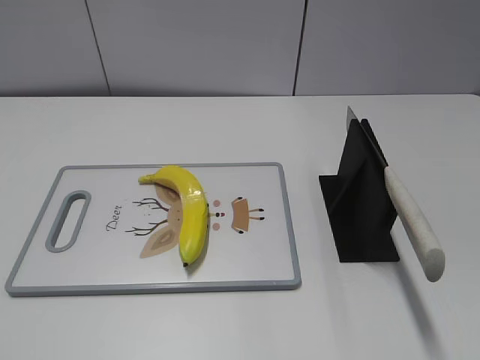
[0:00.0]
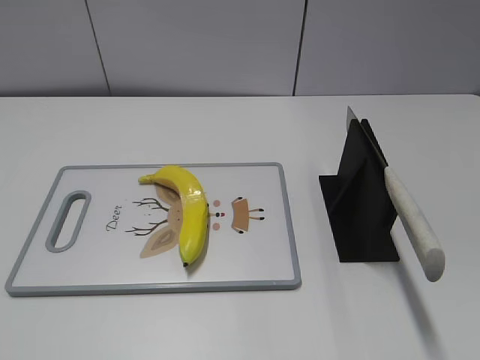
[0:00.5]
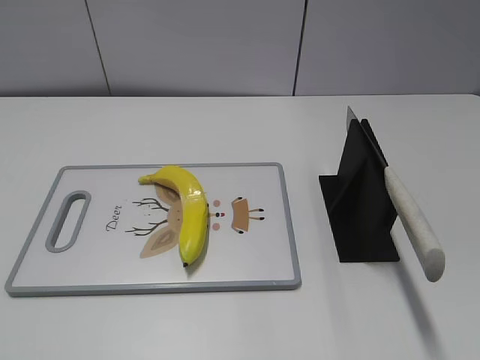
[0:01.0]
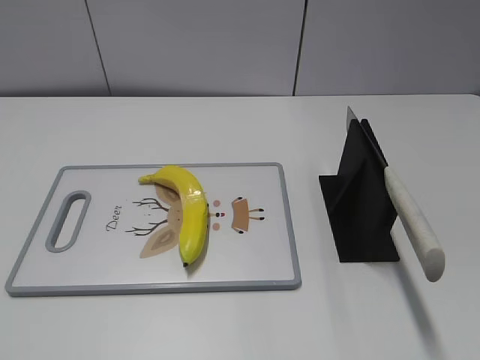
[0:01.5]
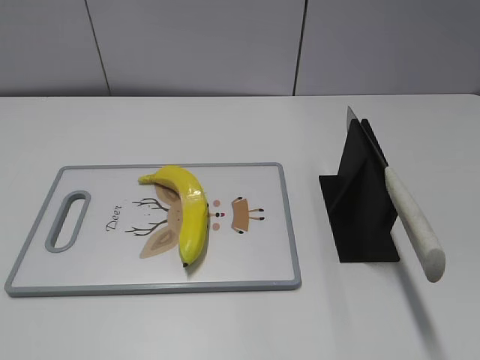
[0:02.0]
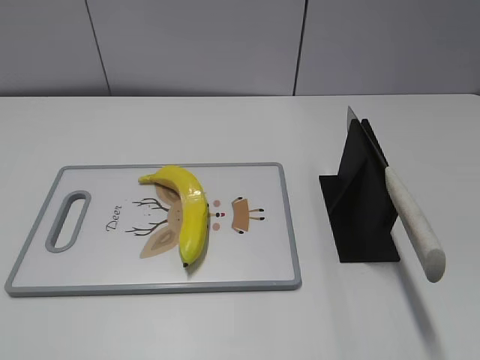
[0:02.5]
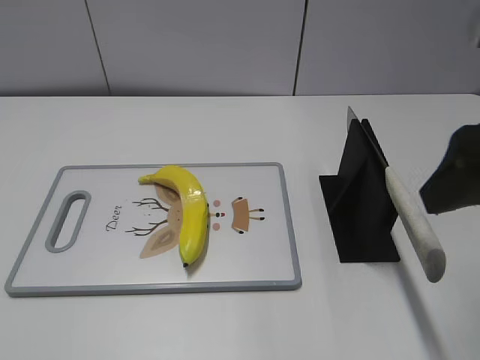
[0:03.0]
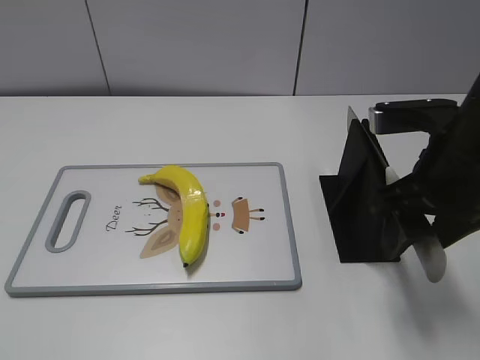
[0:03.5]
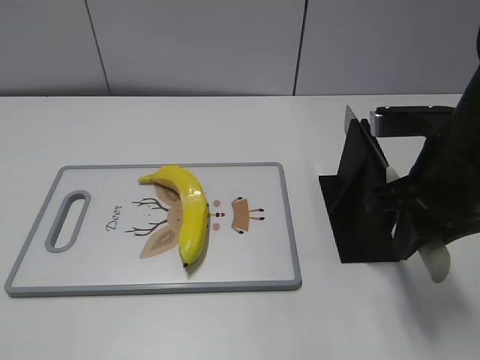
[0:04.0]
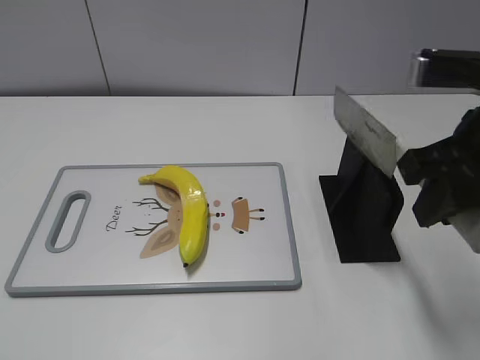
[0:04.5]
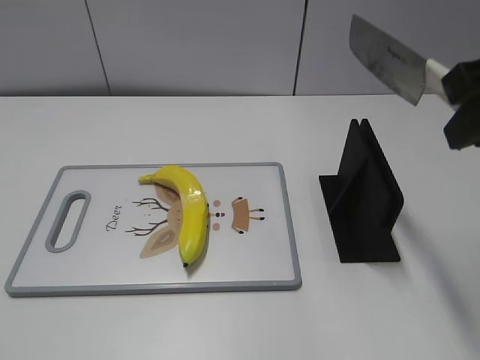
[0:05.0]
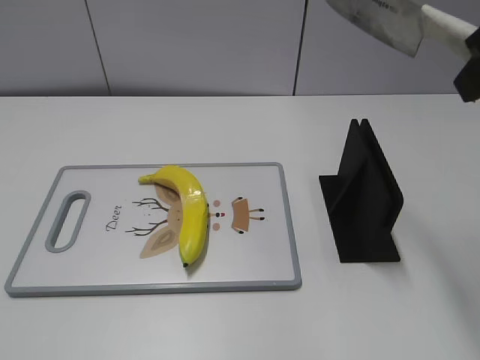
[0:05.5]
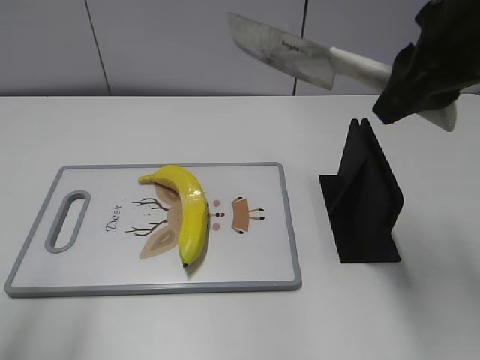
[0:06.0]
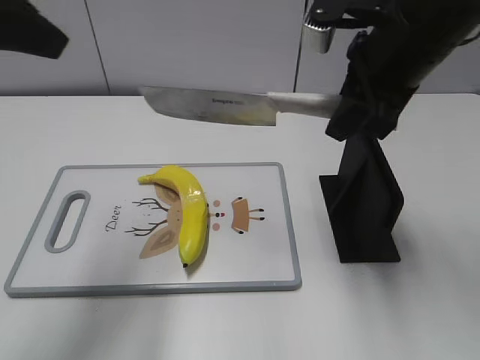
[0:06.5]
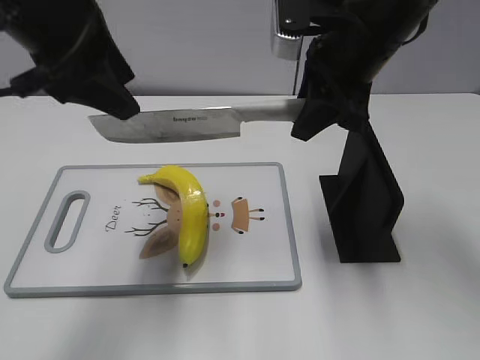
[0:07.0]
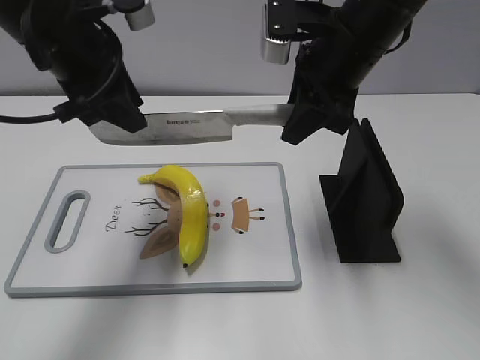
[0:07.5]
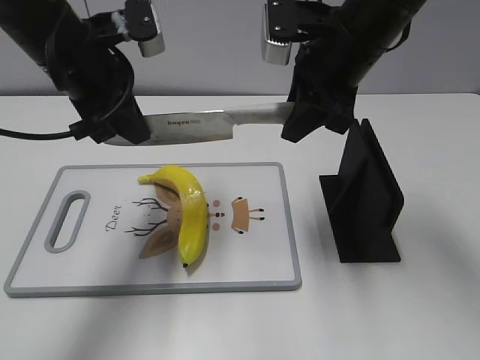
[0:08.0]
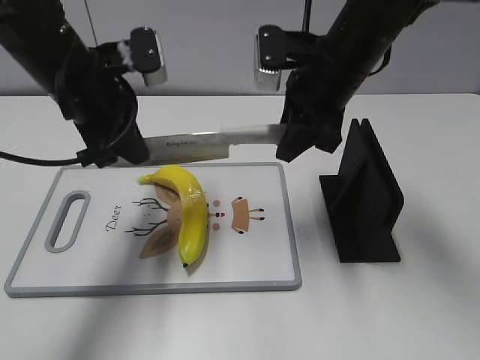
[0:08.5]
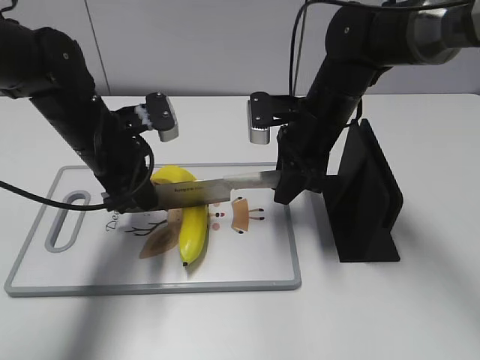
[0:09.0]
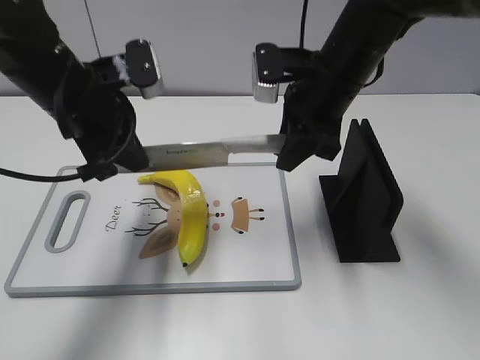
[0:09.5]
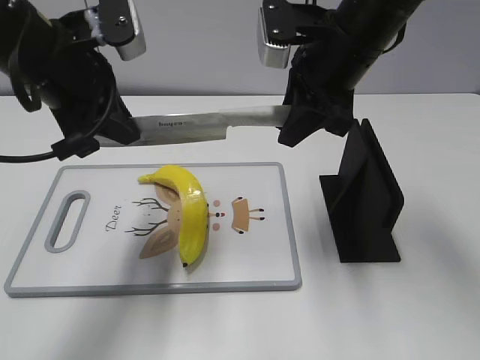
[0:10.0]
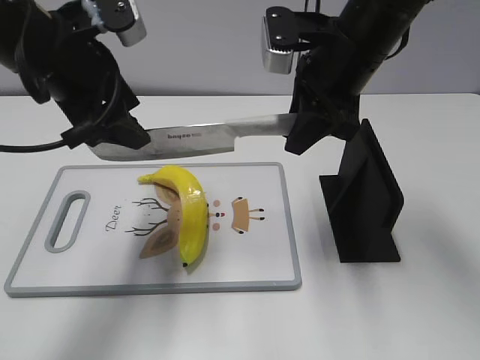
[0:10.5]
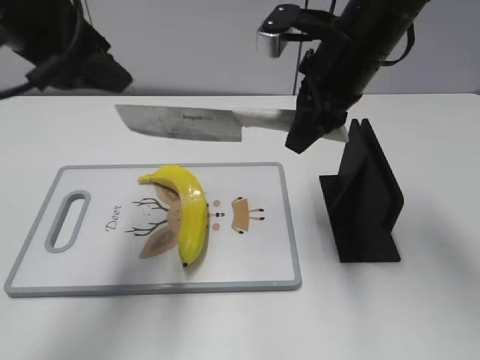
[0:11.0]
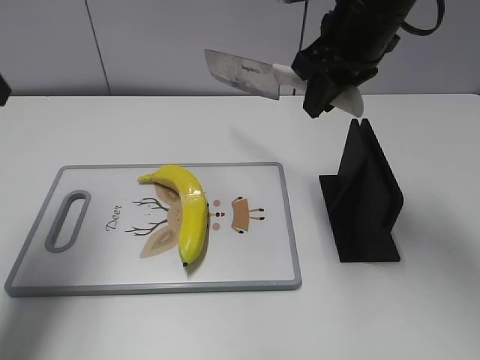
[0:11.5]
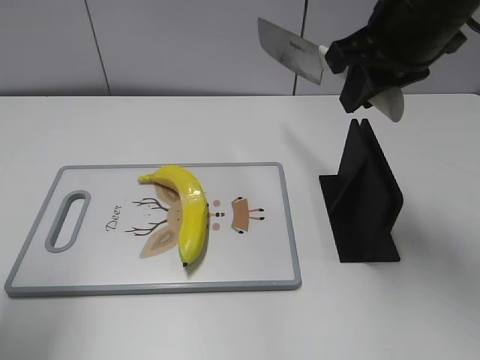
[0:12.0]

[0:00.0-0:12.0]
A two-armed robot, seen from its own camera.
Task of the whole recording: cut plastic banana.
Step, 0:00.0 to 0:04.5: Grab the knife handle with your right hand.
Step, 0:05.0 to 0:10.0: Lift the knife with your right hand.
0:02.0 to 0:04.0: The right gripper goes about 25 cm forward and to the left, and closes up.
0:04.0 to 0:06.0: The right gripper moves upward, some 10 cm, while the left gripper travels forward and upward by roughly 15 cm.
0:06.0 to 0:08.0: The left gripper travels forward, to the right and downward by some 25 cm, and closes up. The right gripper heads forward, downward and to the left, covering approximately 15 cm.
0:08.0 to 0:10.0: The left gripper moves approximately 10 cm downward and comes back, while the right gripper travels downward and back again, some 10 cm each way.
0:10.0 to 0:12.0: The right gripper moves upward, approximately 5 cm; the left gripper heads to the left, backward and upward, covering roughly 15 cm, and opens up.

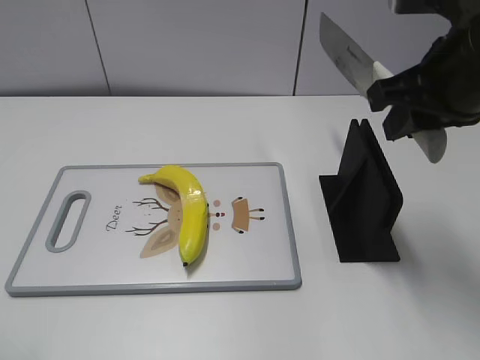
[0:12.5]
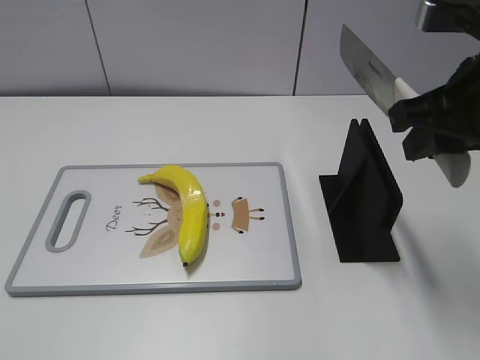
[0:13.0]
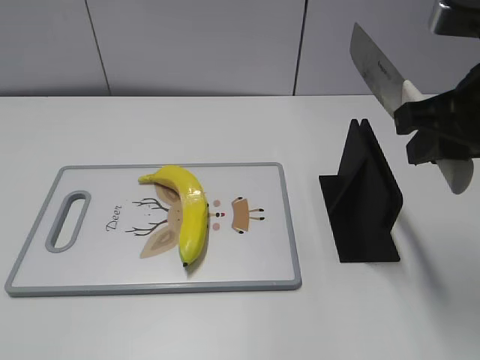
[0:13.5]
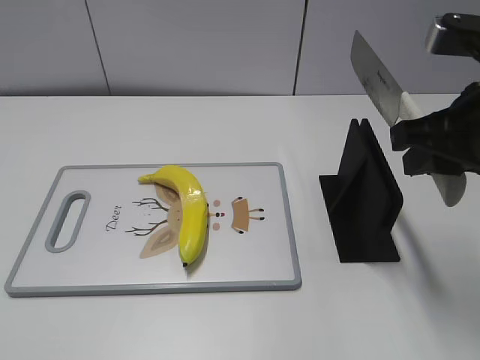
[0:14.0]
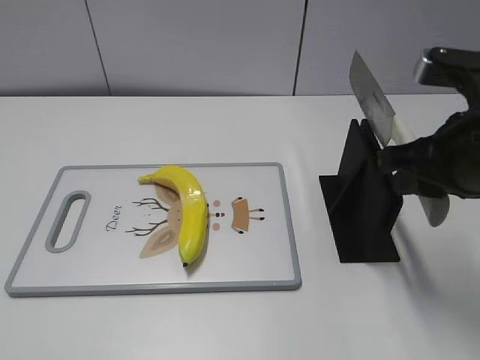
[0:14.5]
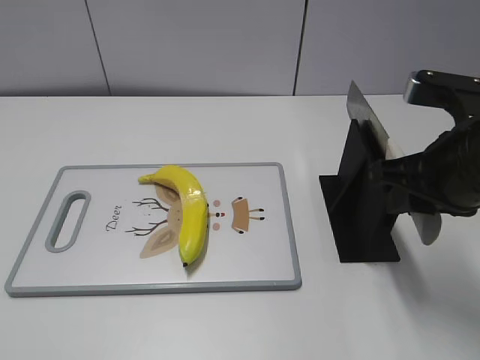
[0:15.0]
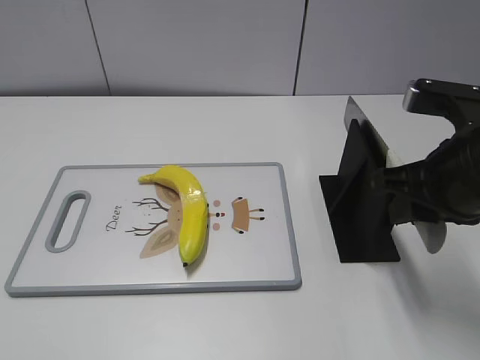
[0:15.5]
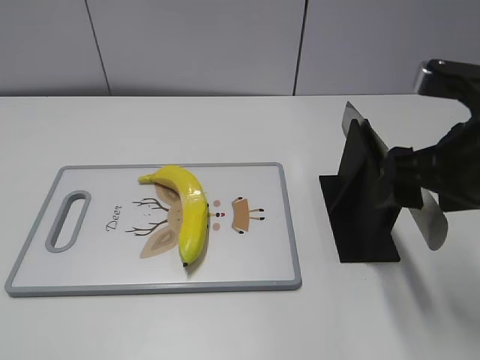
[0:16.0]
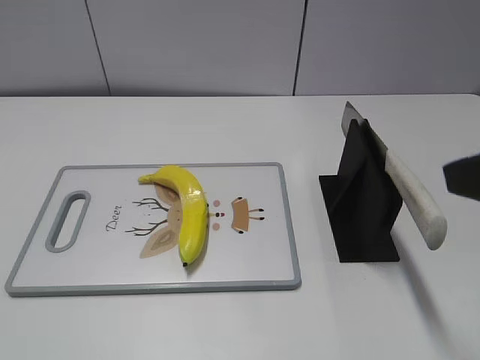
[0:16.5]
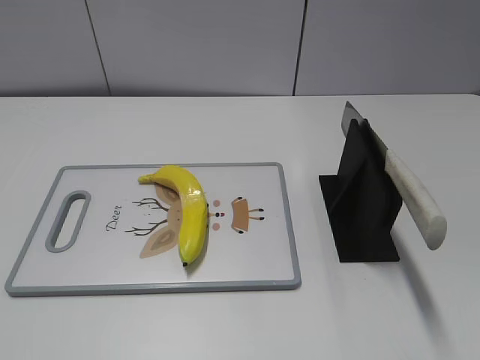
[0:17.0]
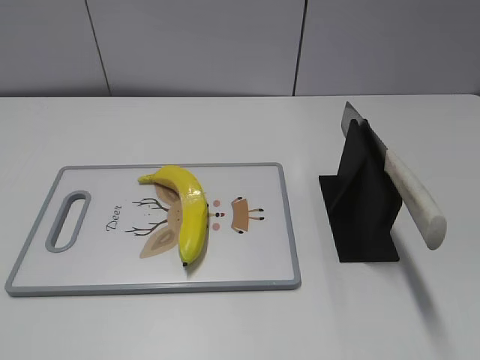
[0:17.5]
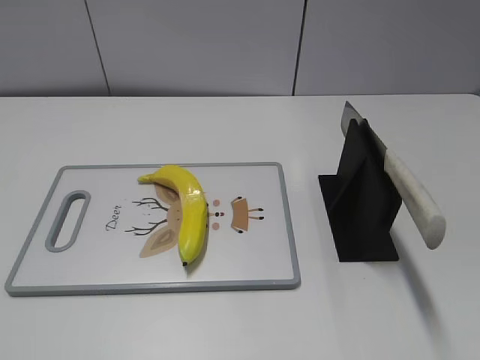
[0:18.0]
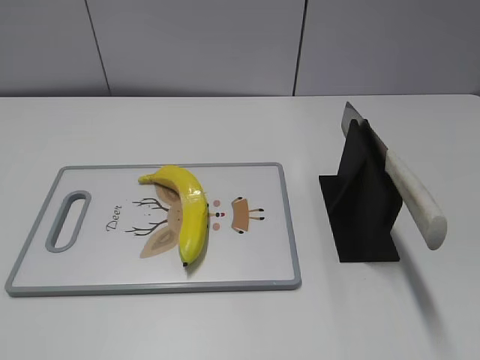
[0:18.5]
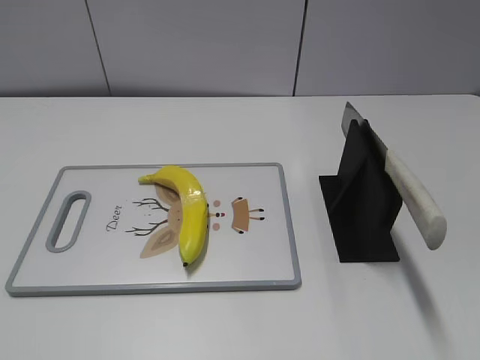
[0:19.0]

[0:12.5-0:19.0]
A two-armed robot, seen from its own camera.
Task of the whole recording: cut plastic banana.
Step, 0:13.5 to 0:19.0: Place the knife on the storage rack with your right hand.
0:12.5 to 0:14.5: The right gripper is displaced downward by about 5 cm.
0:14.5 to 0:17.0: The right gripper travels backward and to the right by about 20 cm, and opens its fingers.

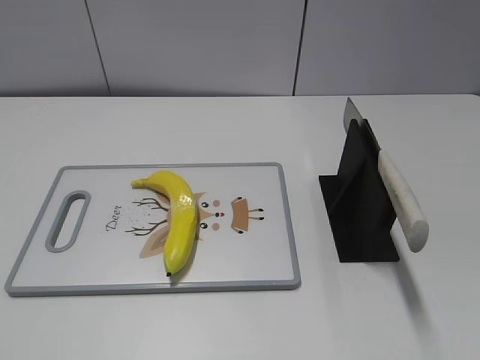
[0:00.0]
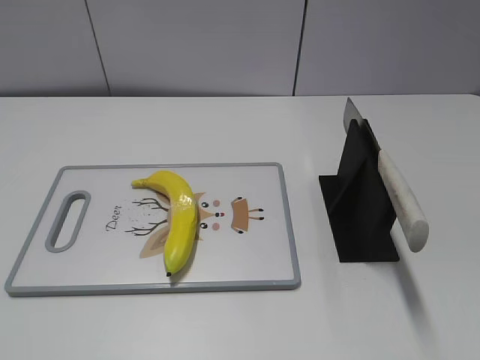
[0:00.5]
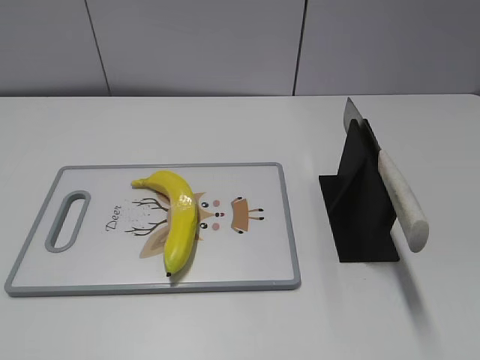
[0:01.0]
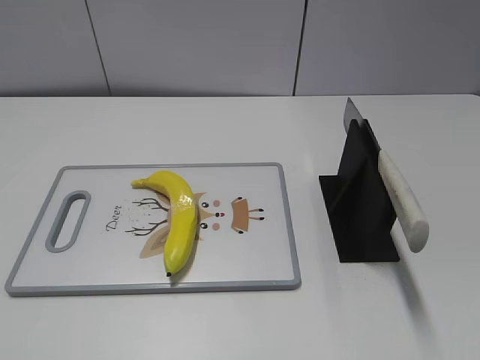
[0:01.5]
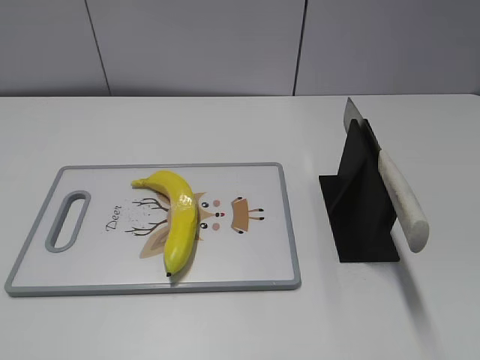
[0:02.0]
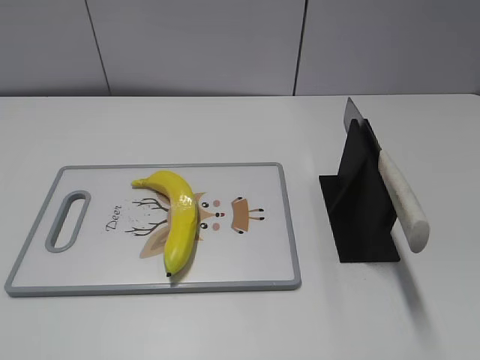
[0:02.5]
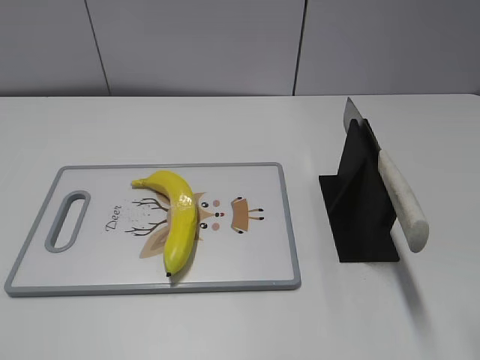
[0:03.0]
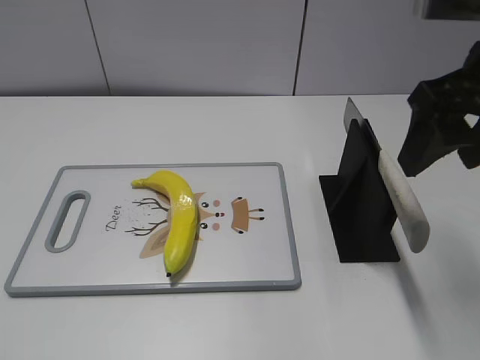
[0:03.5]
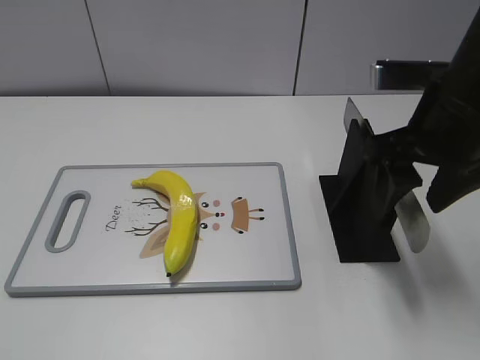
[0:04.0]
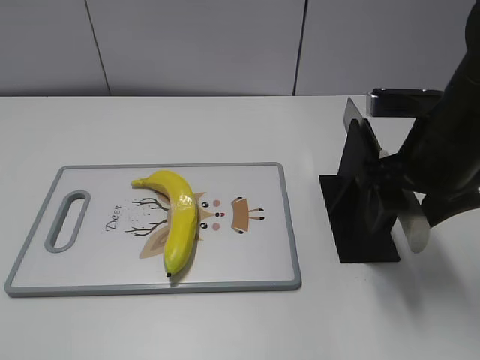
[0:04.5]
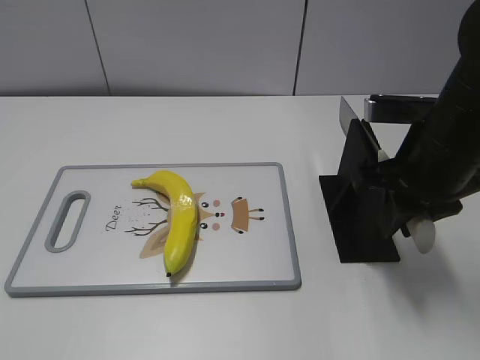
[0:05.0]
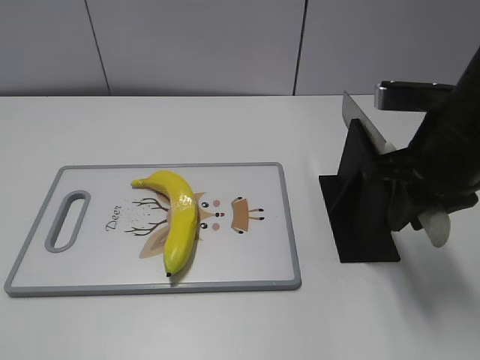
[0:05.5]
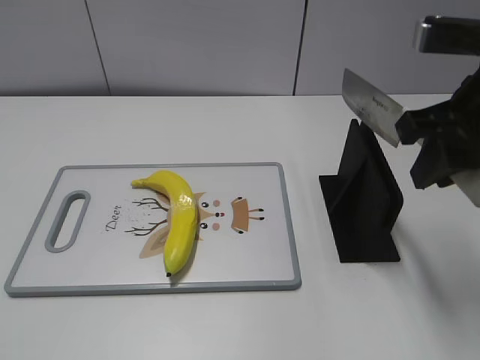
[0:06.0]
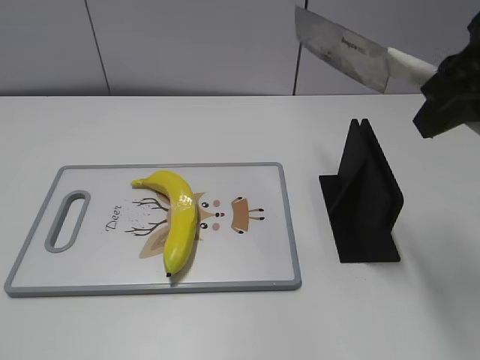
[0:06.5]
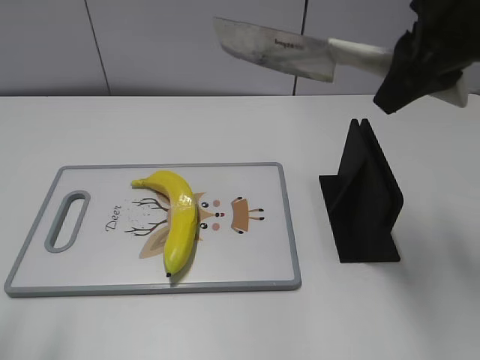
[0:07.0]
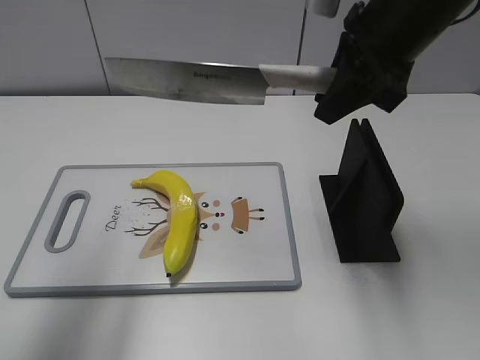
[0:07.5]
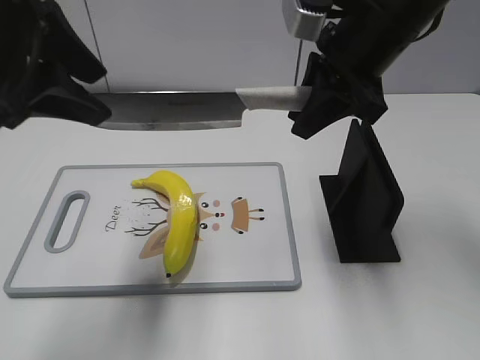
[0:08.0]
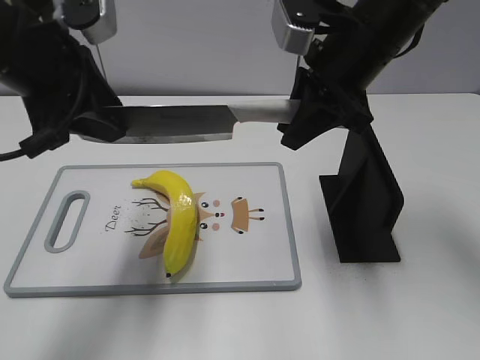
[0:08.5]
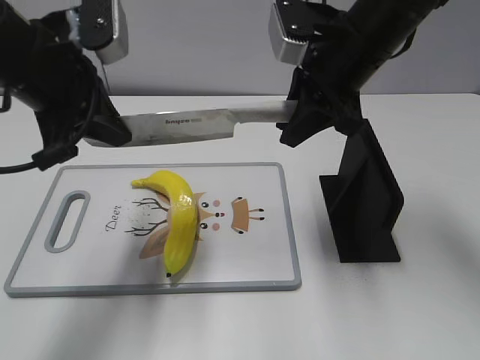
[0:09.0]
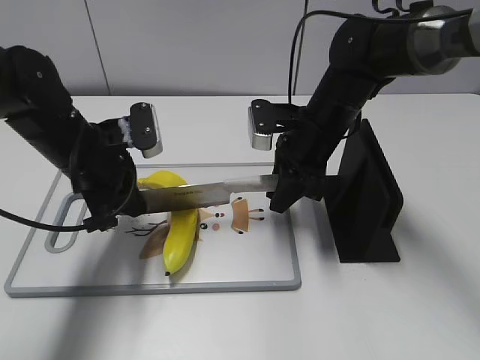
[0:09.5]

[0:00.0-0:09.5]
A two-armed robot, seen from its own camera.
Task of the whole recording: cut plastic banana.
Step, 0:00.0 to 0:06.0: Grab the knife handle with your right hand.
0:02.0 to 0:04.0: The right gripper travels forward and to the left by some 25 cm.
0:04.0 to 0:05.5: The right gripper closes its fingers.
0:05.5 to 0:07.5: The right gripper goes about 10 cm upward and forward. Meanwhile the left gripper shifts about 25 cm forward and upward.
0:07.5 to 0:09.5: The left gripper is displaced downward and forward by roughly 30 cm, and closes its fingers. Meanwhile the right gripper shifts approximately 20 cm downward.
